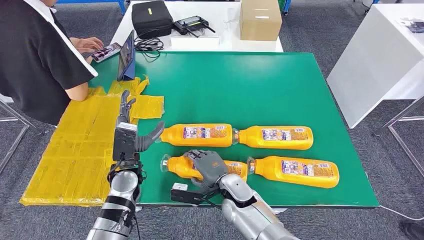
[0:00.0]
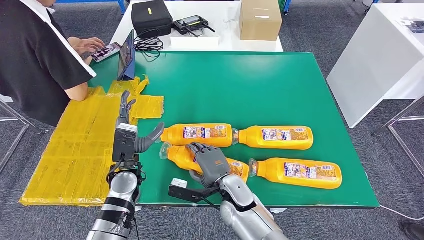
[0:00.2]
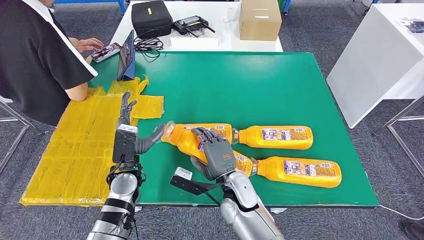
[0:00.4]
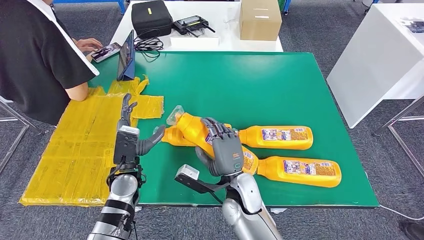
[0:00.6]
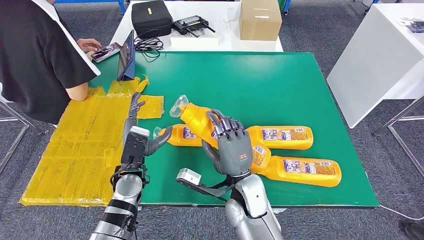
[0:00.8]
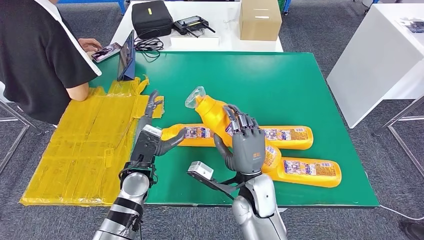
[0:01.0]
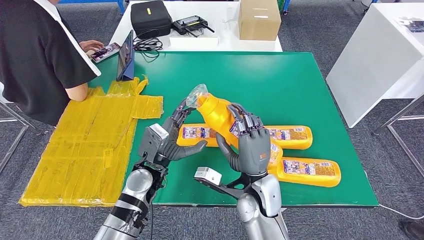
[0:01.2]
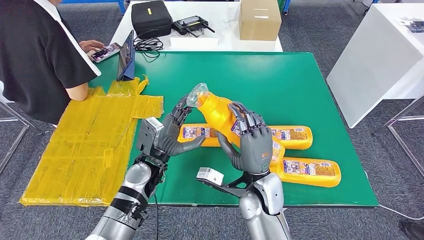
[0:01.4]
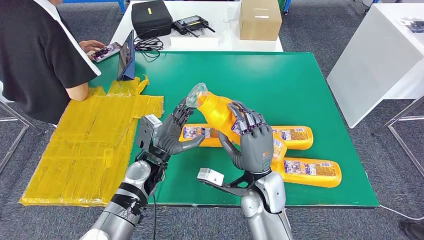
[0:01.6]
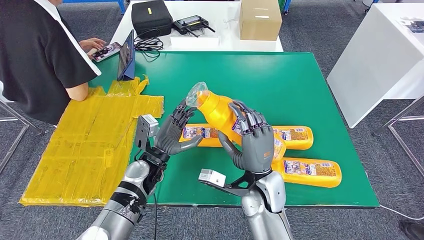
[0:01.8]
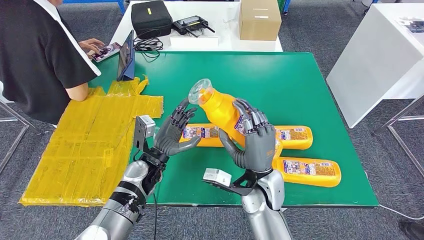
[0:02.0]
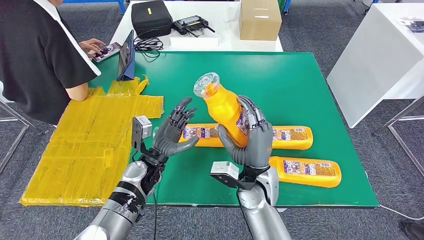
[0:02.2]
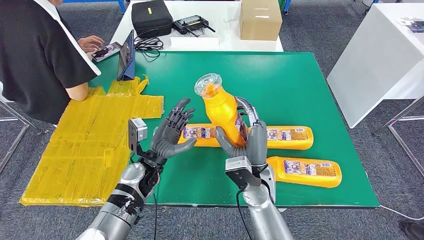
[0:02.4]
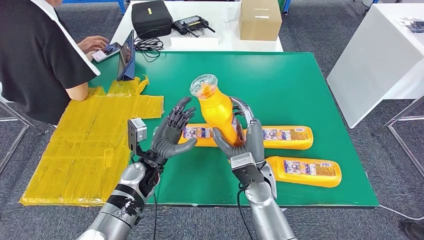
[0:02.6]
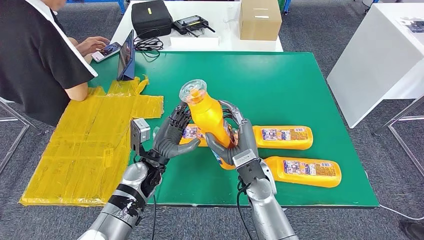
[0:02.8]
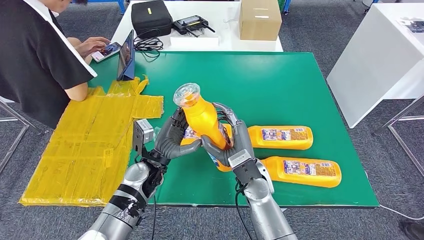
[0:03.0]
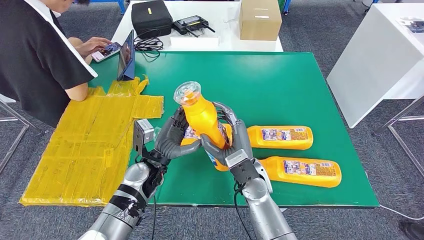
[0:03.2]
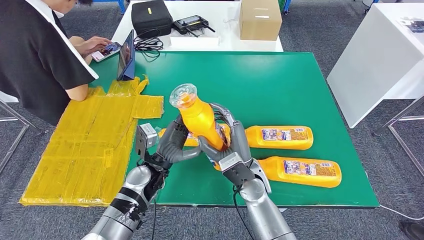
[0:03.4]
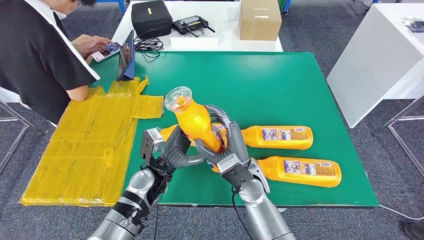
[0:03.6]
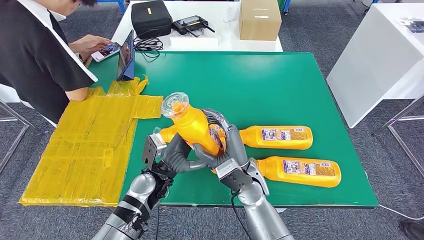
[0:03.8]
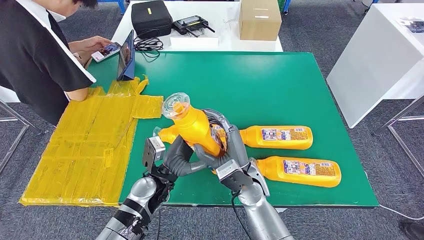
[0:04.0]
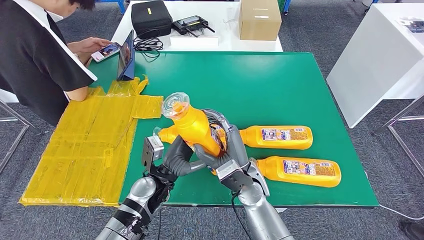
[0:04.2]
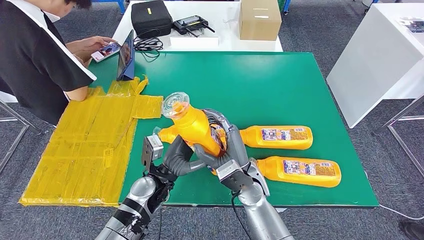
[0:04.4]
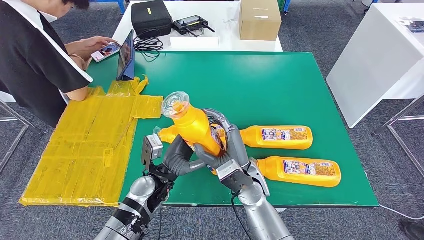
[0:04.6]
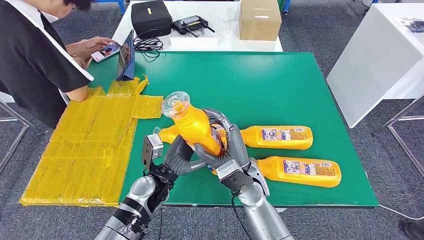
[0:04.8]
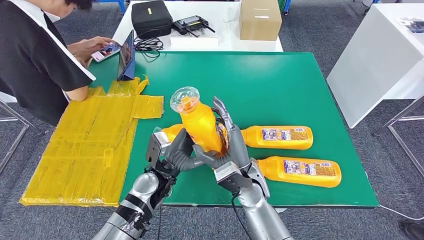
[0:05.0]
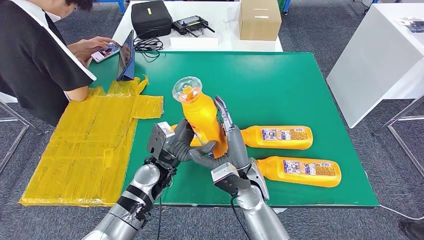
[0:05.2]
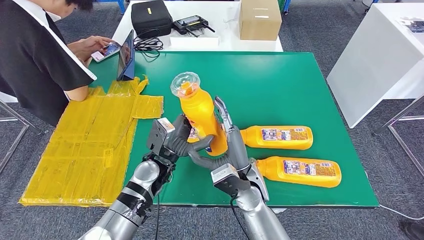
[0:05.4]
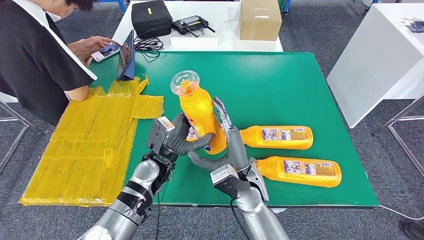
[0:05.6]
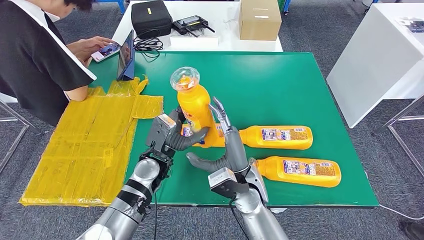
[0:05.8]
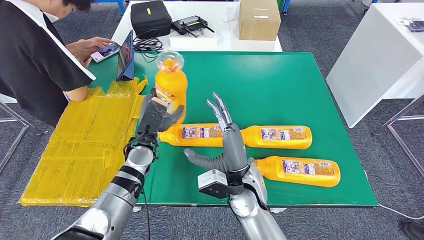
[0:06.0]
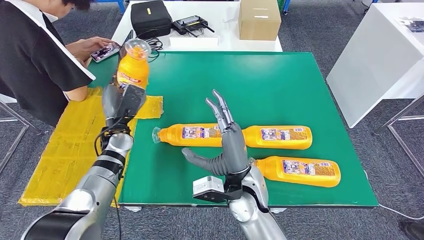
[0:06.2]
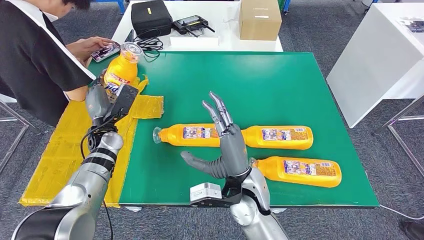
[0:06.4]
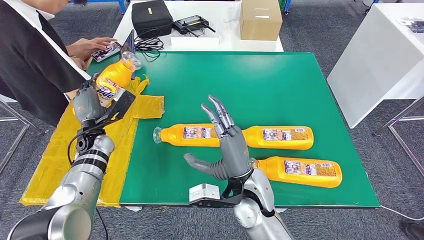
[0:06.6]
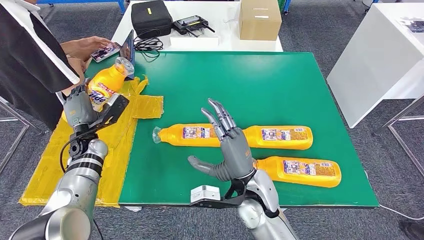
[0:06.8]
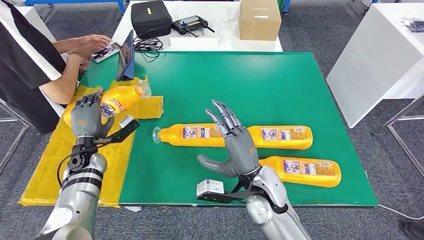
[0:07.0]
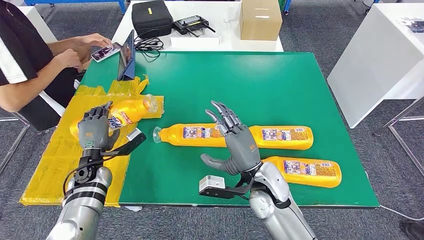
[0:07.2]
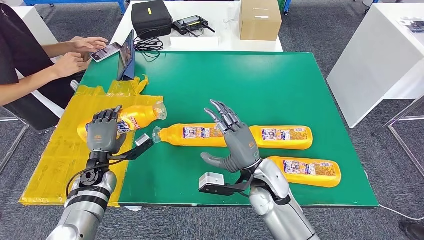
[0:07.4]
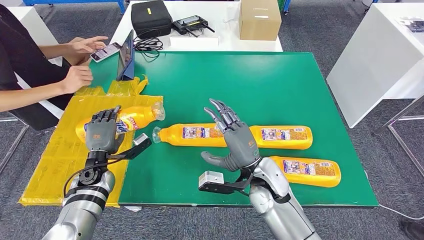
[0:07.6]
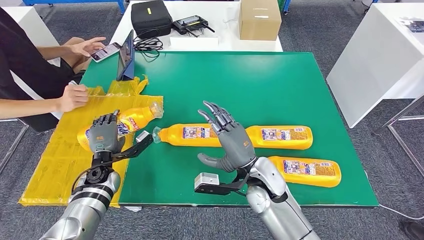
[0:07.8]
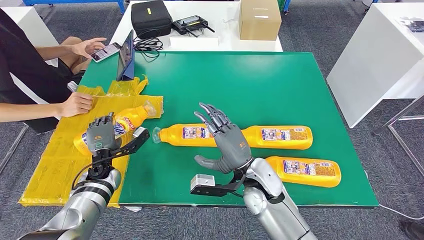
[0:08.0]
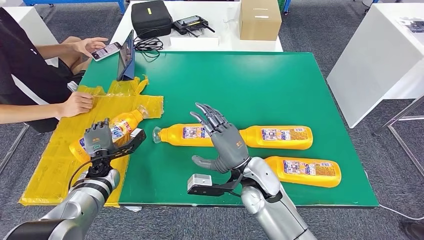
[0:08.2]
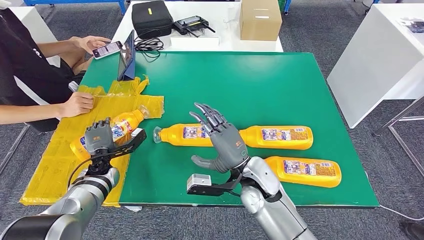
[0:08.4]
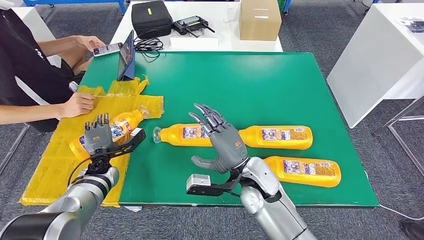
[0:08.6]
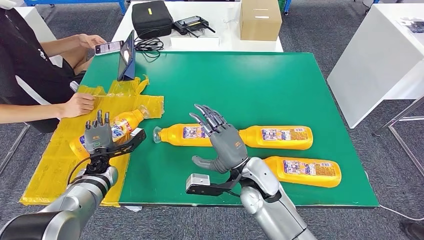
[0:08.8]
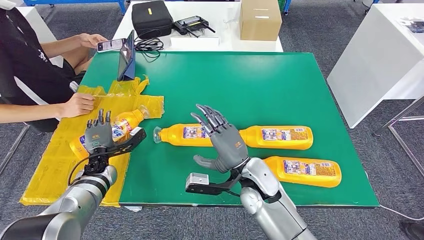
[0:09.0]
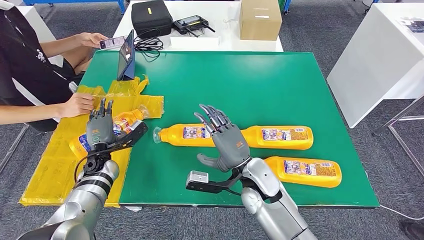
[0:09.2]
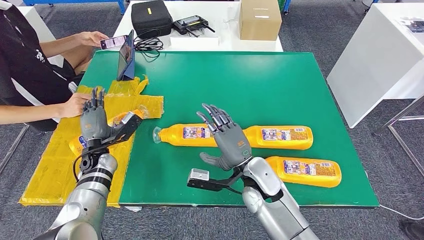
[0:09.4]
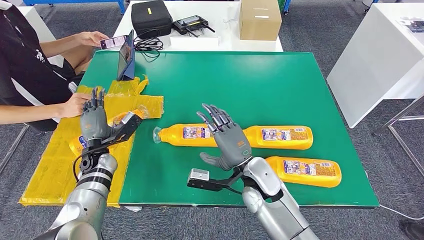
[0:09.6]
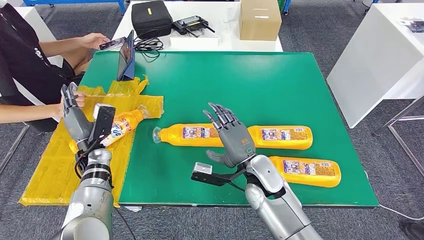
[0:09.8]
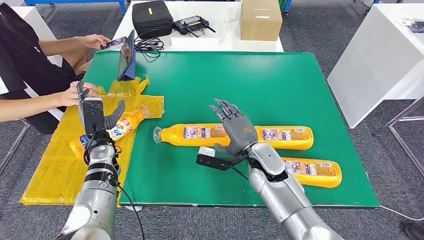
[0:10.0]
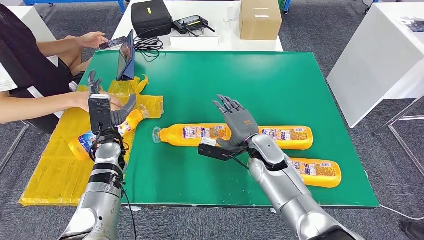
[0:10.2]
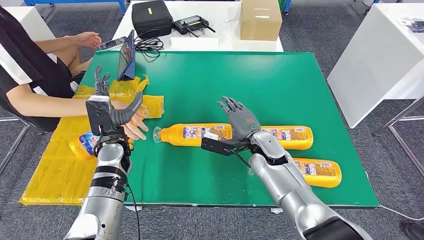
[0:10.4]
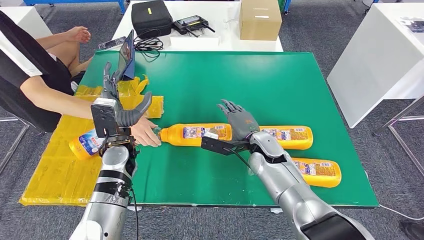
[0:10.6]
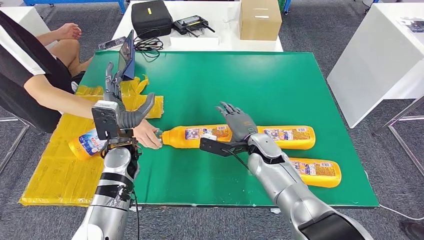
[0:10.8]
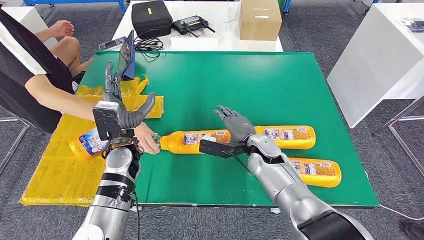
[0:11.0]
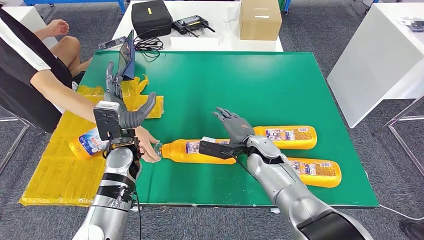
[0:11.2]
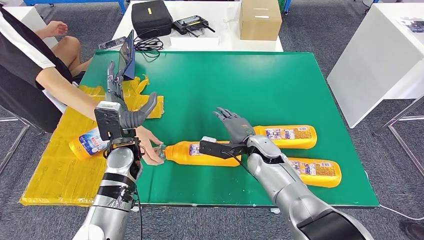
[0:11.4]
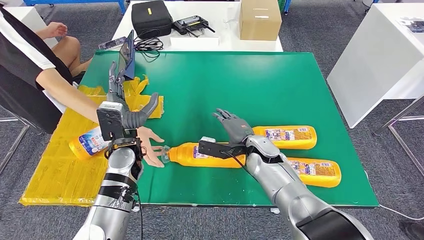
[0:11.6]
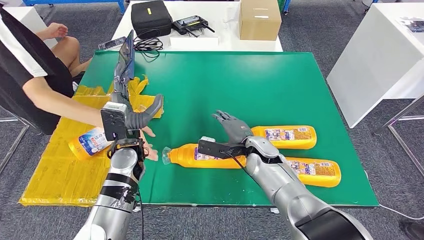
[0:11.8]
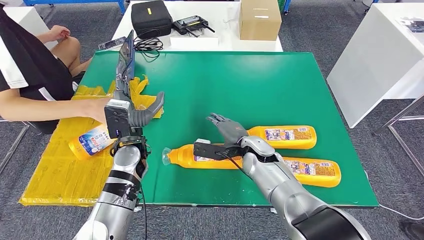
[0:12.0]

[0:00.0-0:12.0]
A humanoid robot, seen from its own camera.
Step, 0:00.0 to 0:04.4: Take the fast-moving consumer goods bottle from the table.
Step, 0:04.6 to 0:11.0: Flip the fast-moving consumer goods bottle to the front side.
0:03.0 to 0:04.4: The hands move only a little.
0:04.4 to 0:06.0: The left hand shifts approximately 10 cm forward and to the left.
0:10.4 to 0:12.0: The left hand is displaced to the right by some 5 cm.

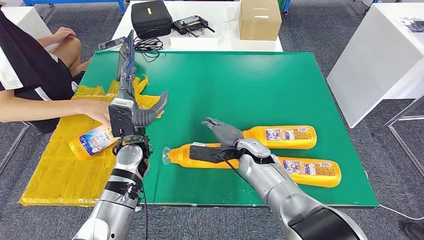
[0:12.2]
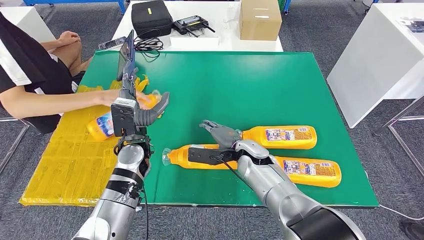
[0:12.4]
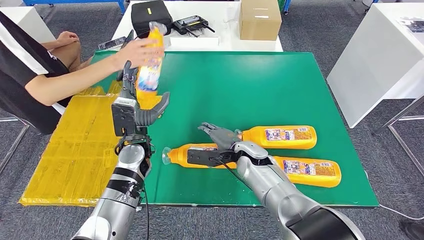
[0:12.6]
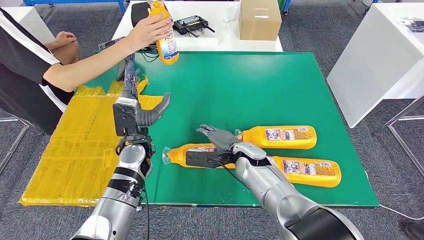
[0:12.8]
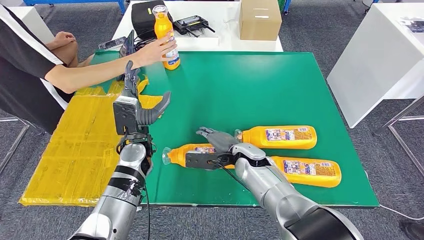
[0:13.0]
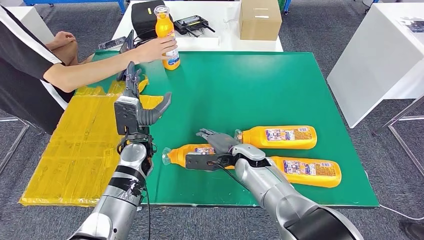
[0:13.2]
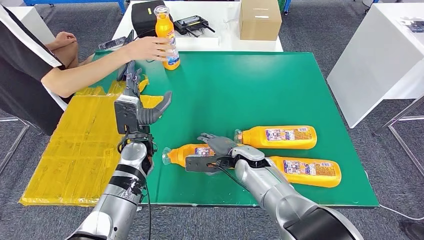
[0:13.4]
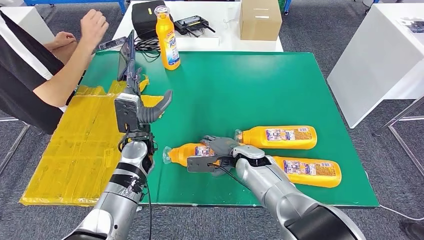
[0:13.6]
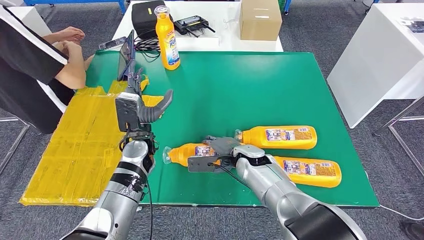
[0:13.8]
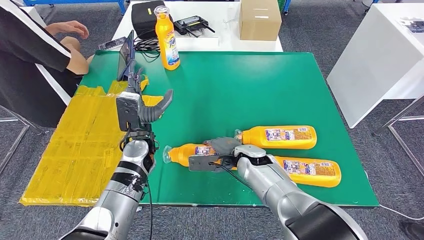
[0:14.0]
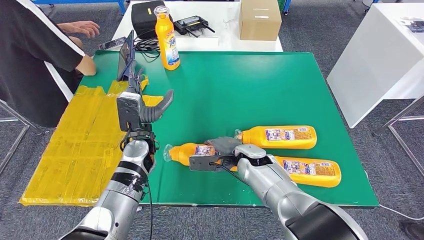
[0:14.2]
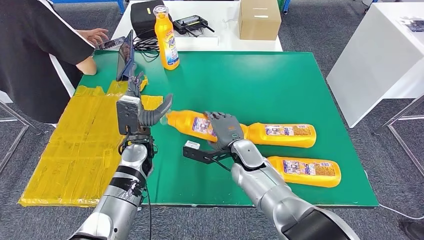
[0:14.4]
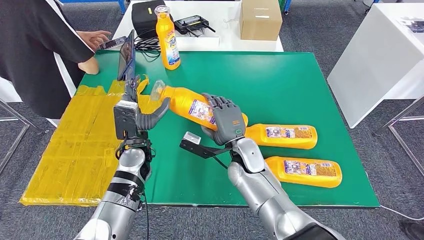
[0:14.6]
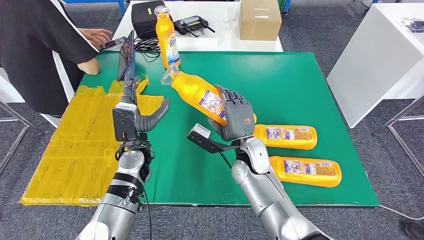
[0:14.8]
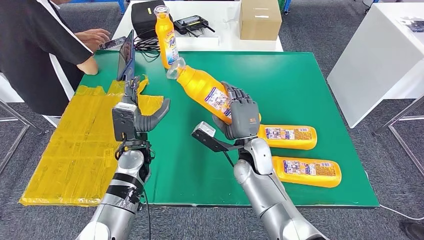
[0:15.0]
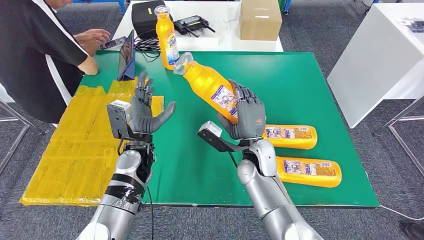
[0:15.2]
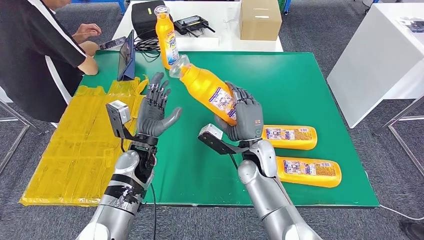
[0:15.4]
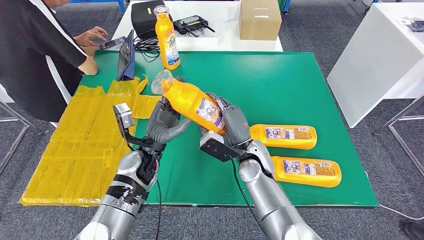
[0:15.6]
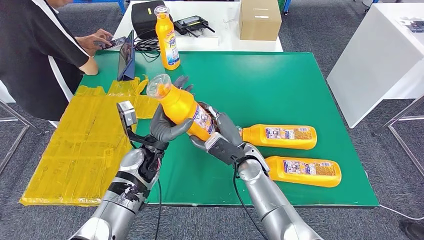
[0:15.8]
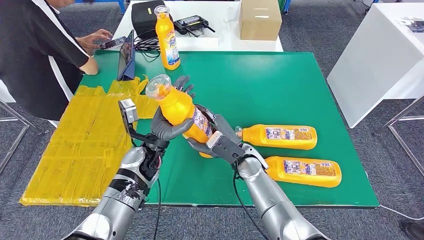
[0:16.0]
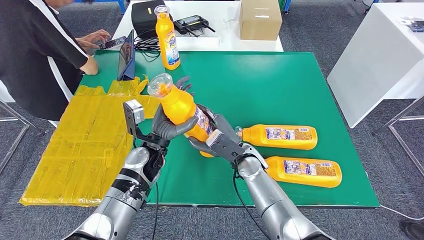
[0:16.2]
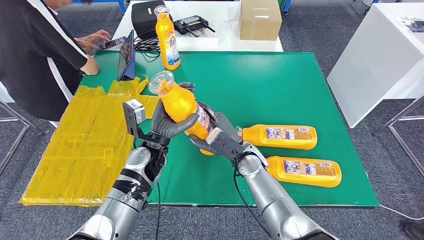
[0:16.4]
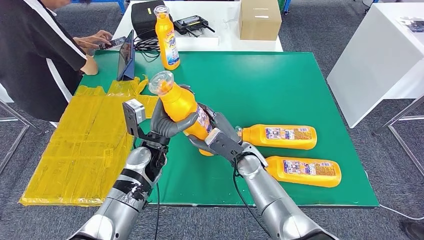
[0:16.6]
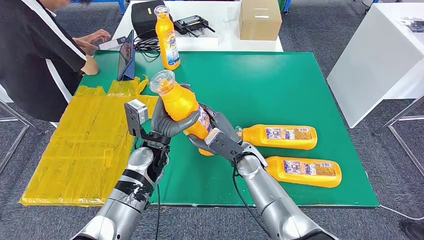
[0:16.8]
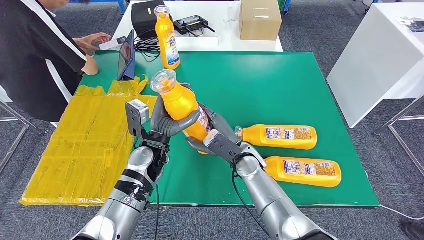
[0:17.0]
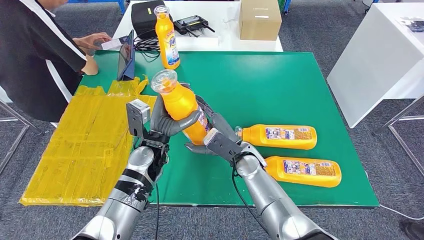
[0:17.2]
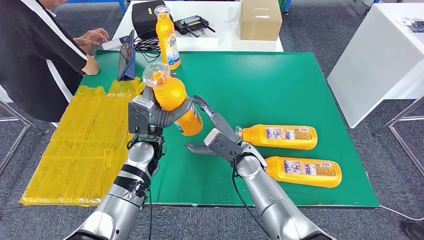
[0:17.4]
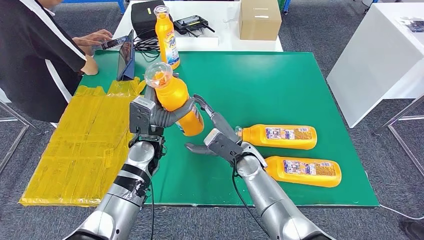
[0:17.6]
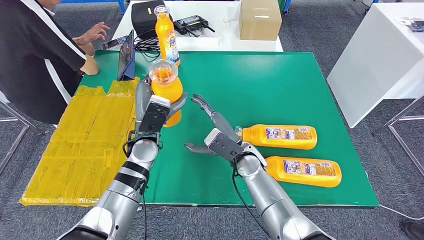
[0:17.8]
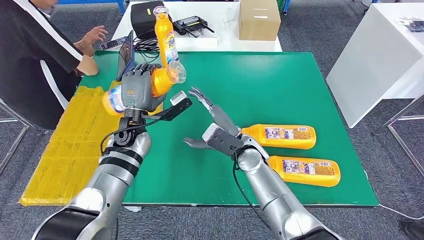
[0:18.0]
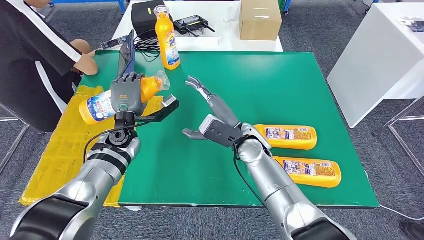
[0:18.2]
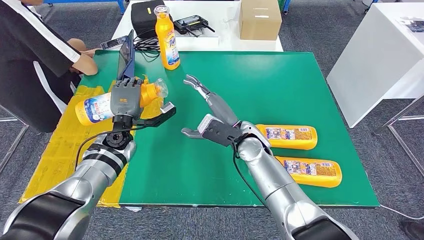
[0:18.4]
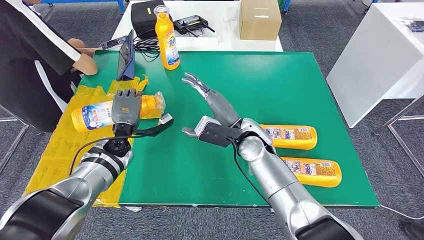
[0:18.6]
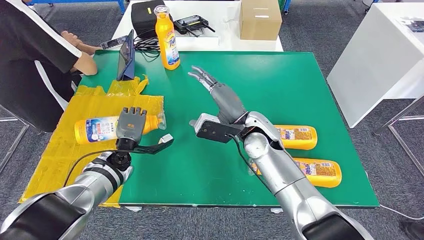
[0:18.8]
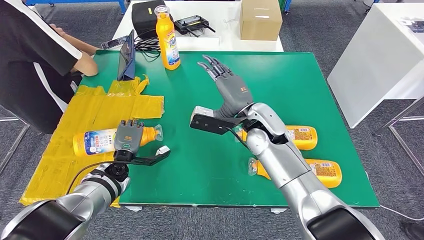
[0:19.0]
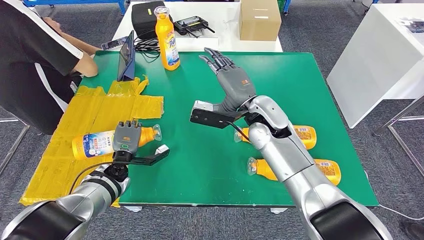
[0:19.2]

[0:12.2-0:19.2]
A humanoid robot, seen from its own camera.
Step, 0:12.2 to 0:17.6: Pick up the fast-moving consumer goods bottle from the table.
0:12.2 to 0:13.6: The hands make only small movements.
